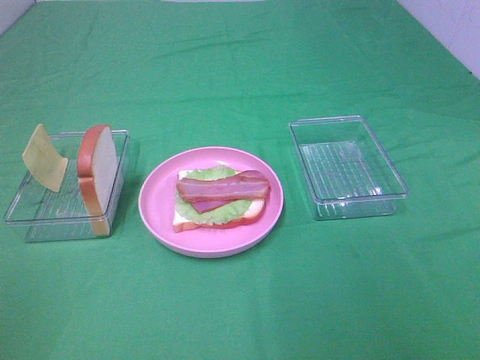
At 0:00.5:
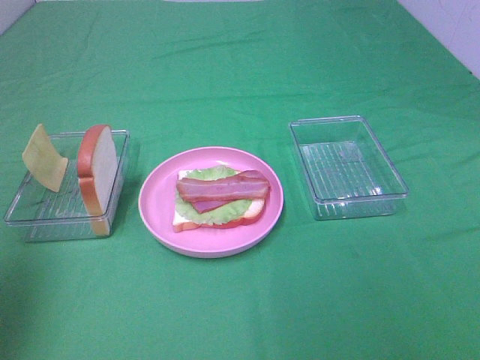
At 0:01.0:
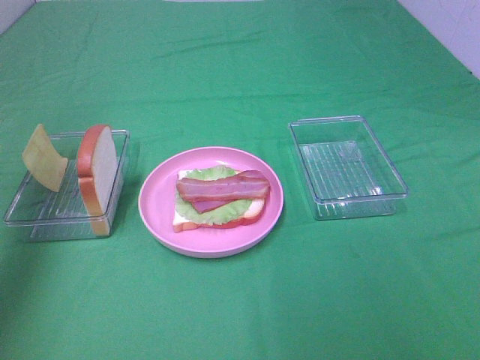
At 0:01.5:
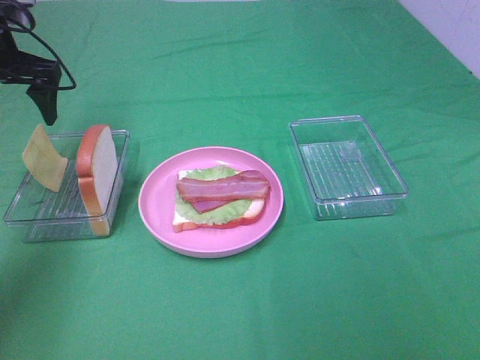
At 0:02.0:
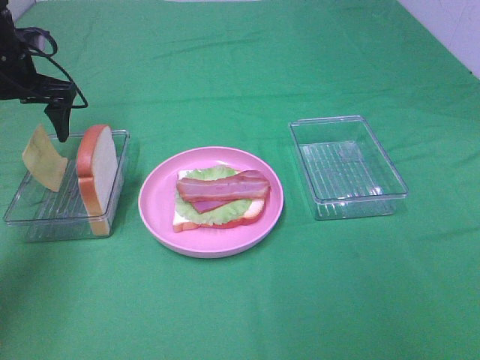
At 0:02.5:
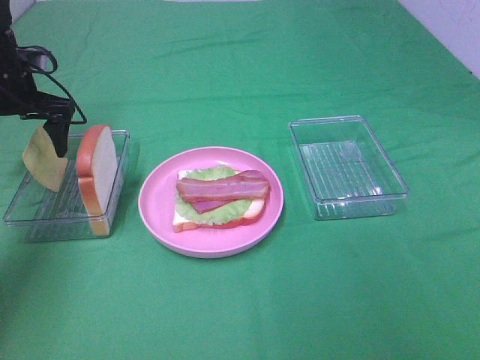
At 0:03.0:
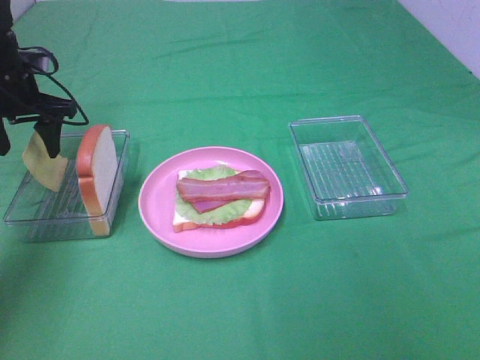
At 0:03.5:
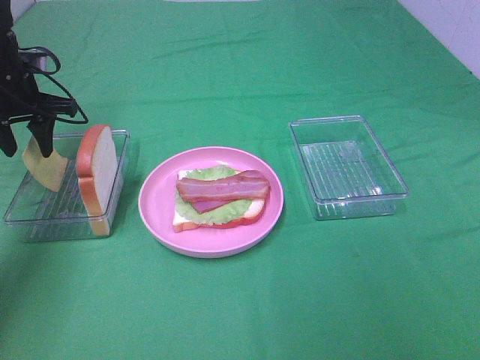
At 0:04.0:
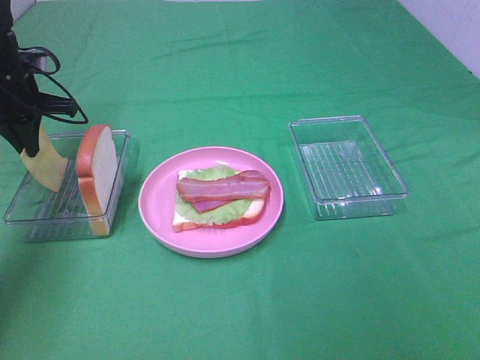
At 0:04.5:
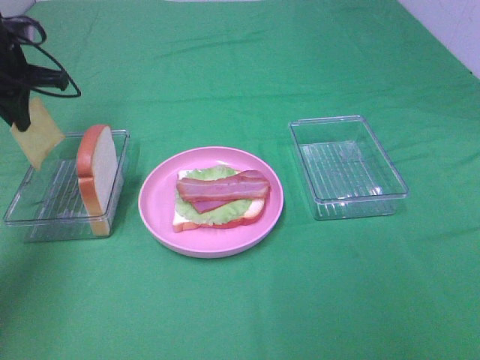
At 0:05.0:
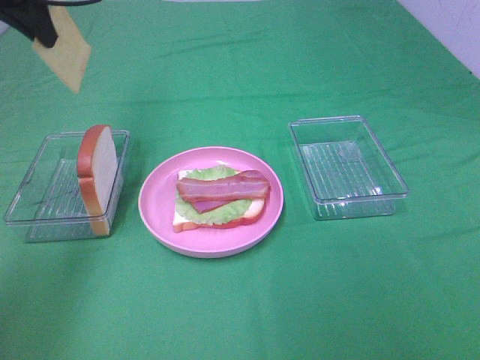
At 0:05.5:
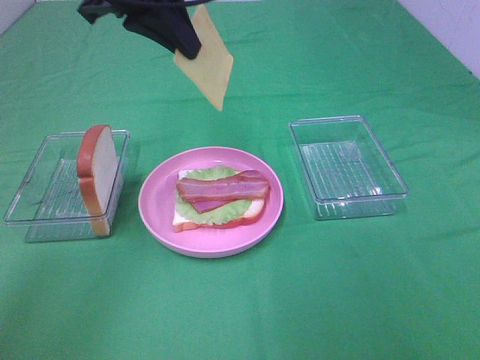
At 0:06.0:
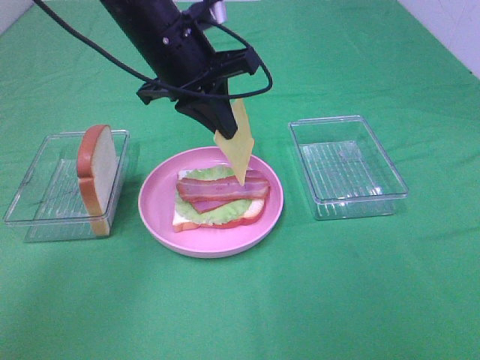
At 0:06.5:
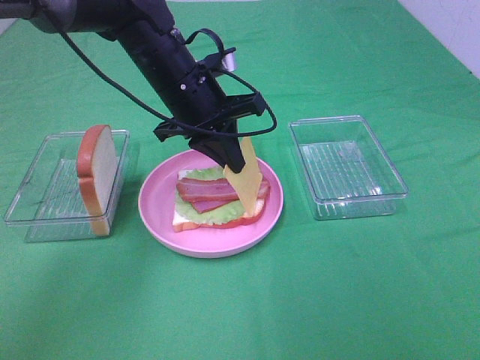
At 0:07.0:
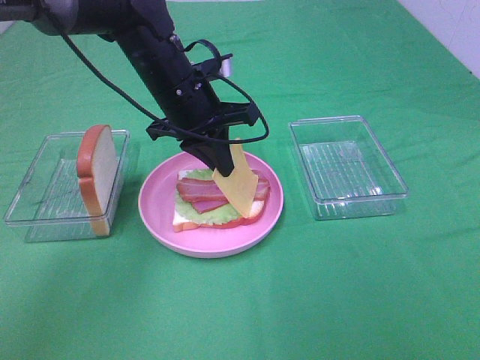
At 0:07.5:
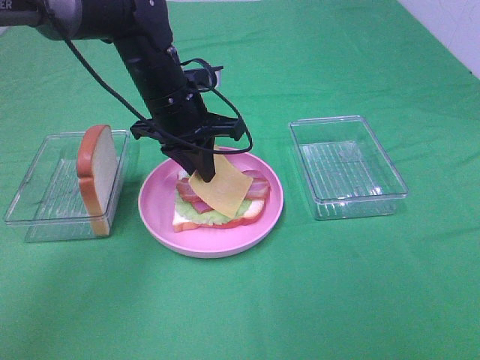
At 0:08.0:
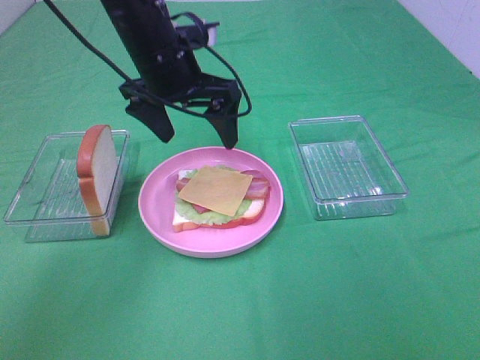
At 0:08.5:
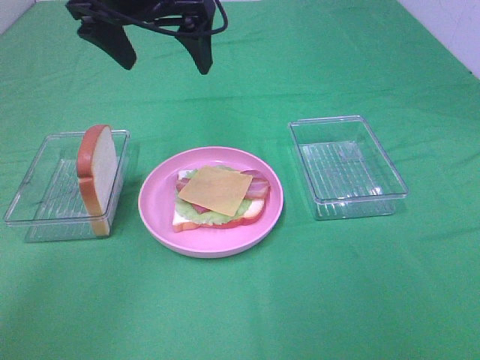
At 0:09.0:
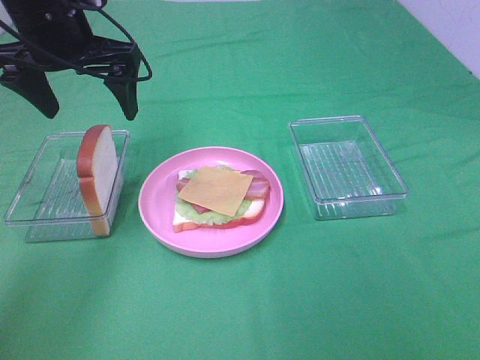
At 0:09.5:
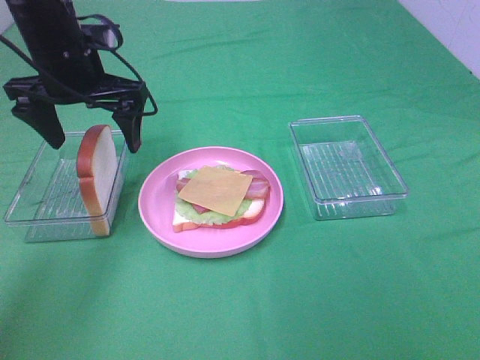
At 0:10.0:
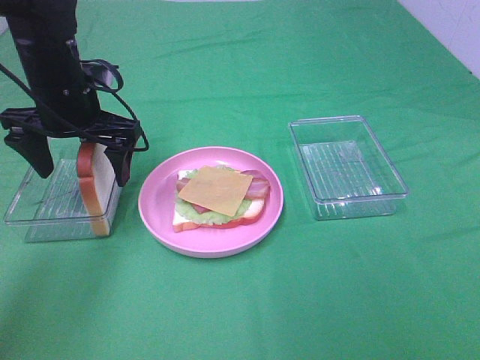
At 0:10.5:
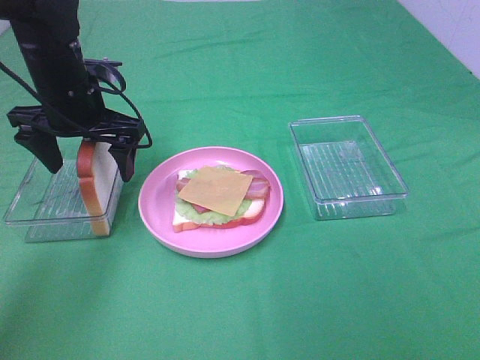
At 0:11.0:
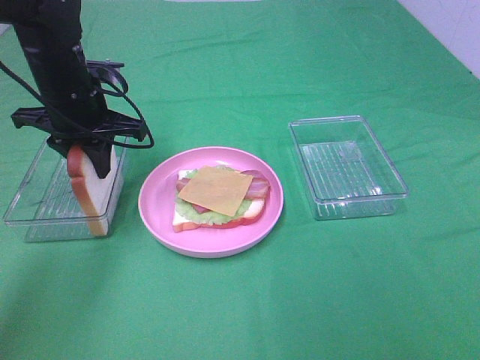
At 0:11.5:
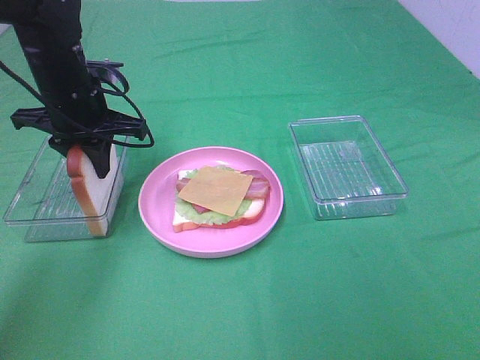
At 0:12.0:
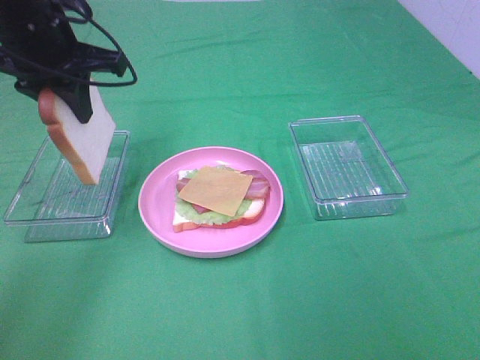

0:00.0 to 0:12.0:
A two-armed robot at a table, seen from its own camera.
Task of the whole recording: Make sandwiches.
Step, 0:00.0 to 0:04.0: Left hand:grab the cheese slice.
Step, 0:04.5 to 0:07.5: Left hand:place the cheese slice on top of the bacon.
Step, 0:08.0 to 0:11.5: Left hand:grab the bread slice.
0:00.0 to 0:02.0: The left gripper is displaced forward by about 40 cm.
0:02.0 to 0:04.0: The left gripper closes.
0:04.0 to 0:06.0: The left gripper moves to the right, about 25 cm.
0:06.0 to 0:08.0: The left gripper opens its fingers.
0:08.0 to 0:10.0: The left gripper goes about 10 cm to the left, and goes upward and returns, roughly 10 cm each way.
0:10.0 to 0:12.0: The left gripper moves upward, some 10 cm, and closes its fingers.

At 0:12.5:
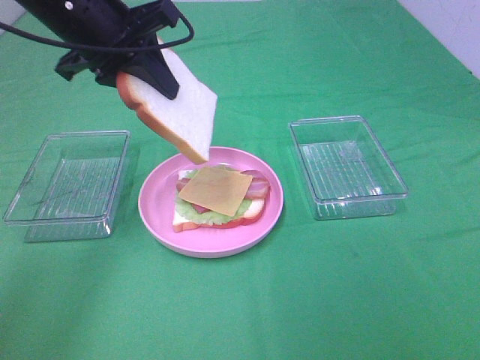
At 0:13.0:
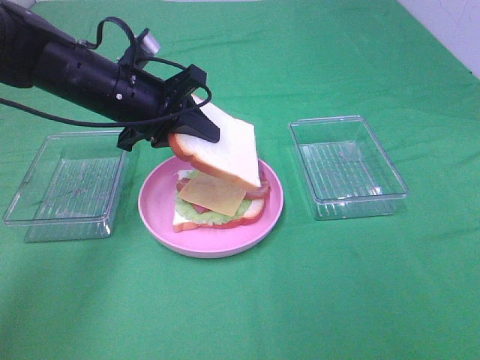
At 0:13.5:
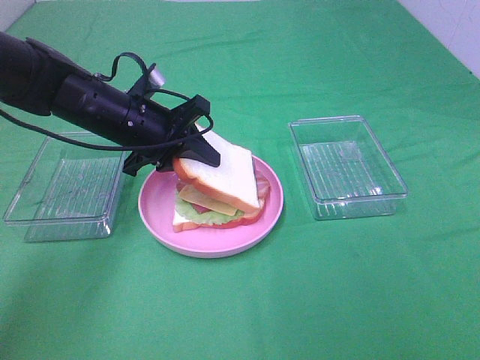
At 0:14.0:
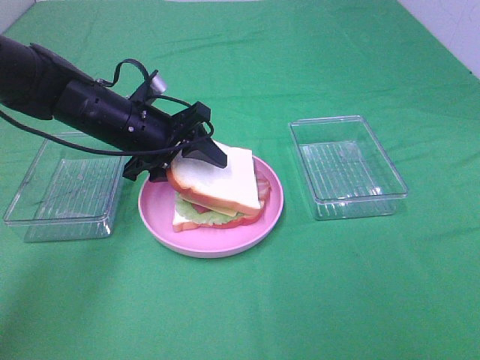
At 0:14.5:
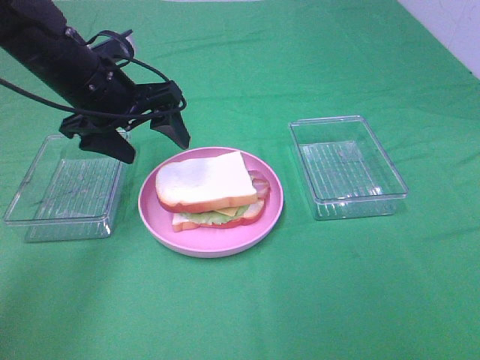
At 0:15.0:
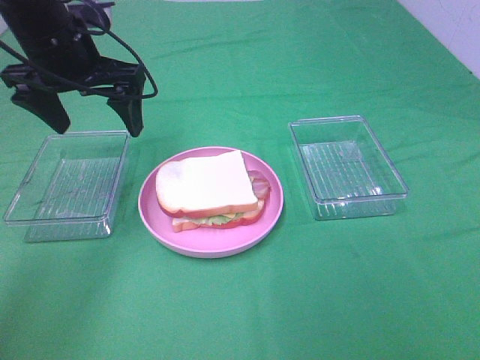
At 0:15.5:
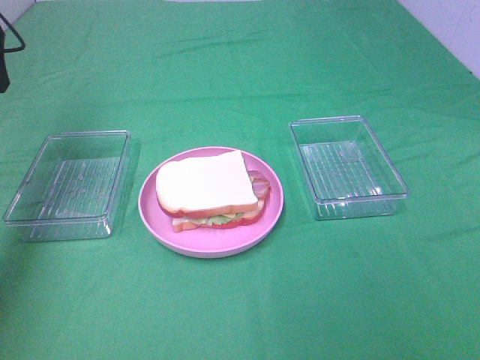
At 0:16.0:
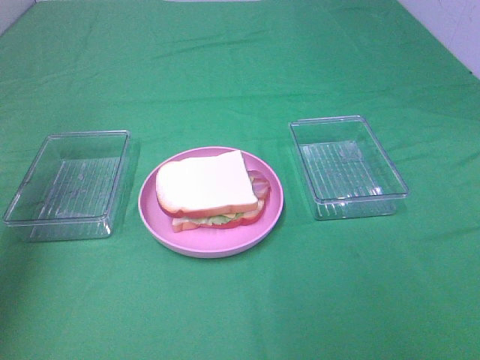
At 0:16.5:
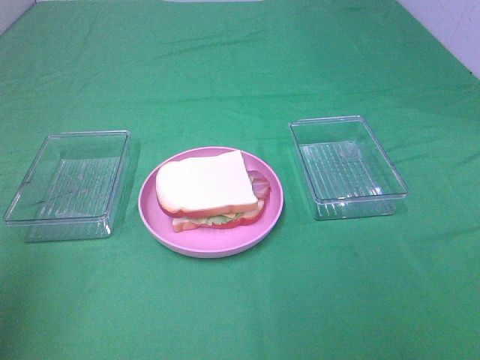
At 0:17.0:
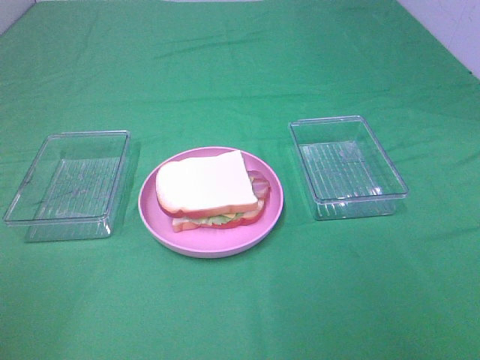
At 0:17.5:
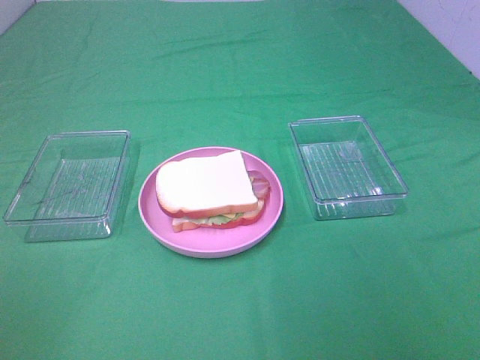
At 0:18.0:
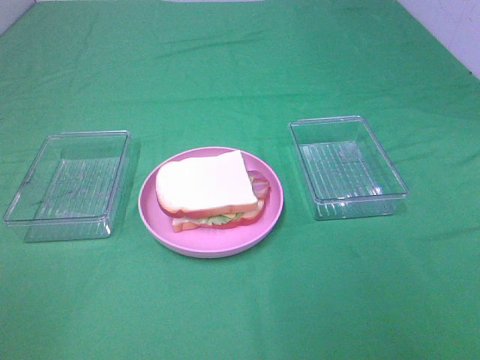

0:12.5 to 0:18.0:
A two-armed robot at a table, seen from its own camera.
Task of the whole recording: Make sandwiches.
Step, 0:12.5 to 0:14.5: Left hand:place the bread slice on the cheese slice.
0:12.5 to 0:14.5: The left gripper heads downward, covering about 5 cm, and opens its fingers.
0:14.5 to 0:16.0: The left gripper shifts approximately 20 cm to the left and upward.
0:16.0 to 0:18.0: The left gripper heads backward, covering about 30 cm.
